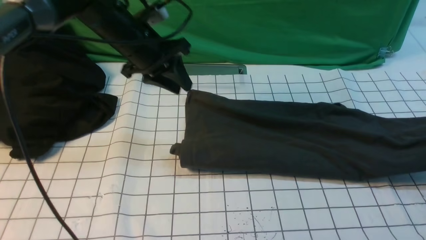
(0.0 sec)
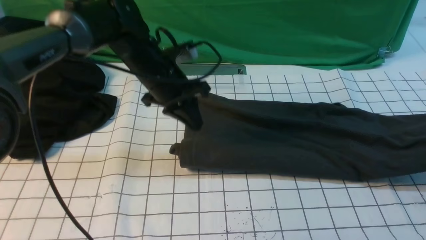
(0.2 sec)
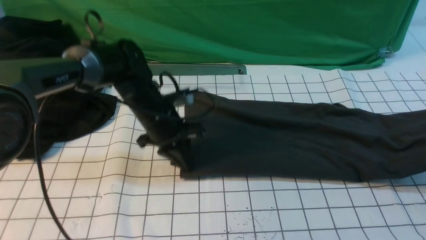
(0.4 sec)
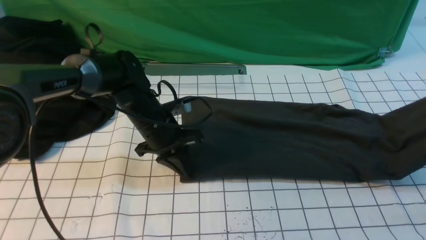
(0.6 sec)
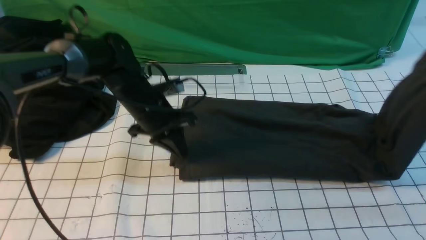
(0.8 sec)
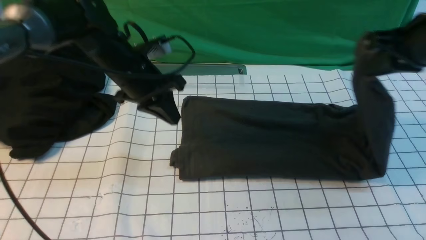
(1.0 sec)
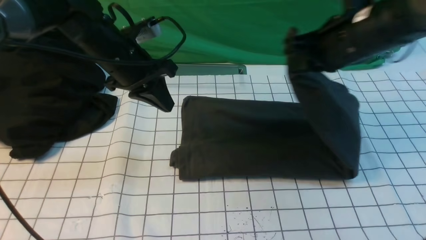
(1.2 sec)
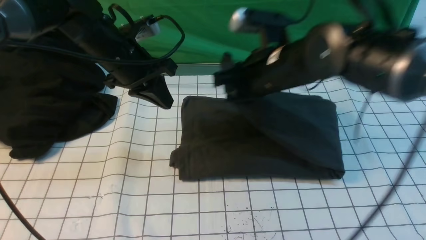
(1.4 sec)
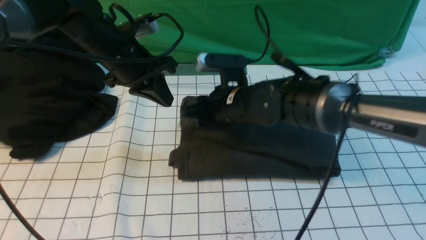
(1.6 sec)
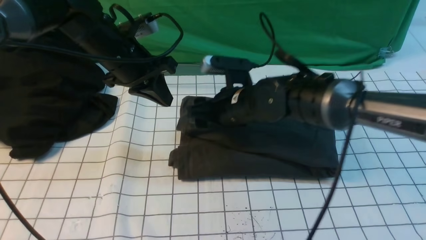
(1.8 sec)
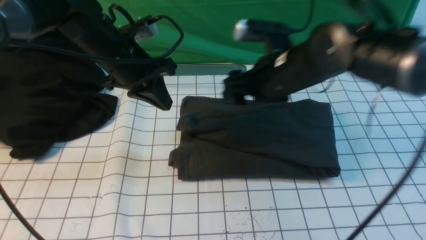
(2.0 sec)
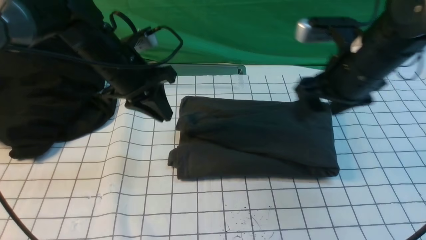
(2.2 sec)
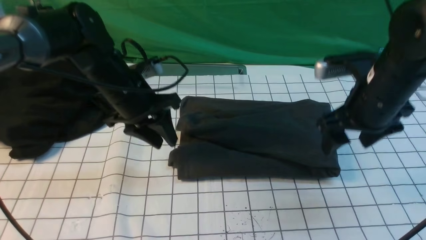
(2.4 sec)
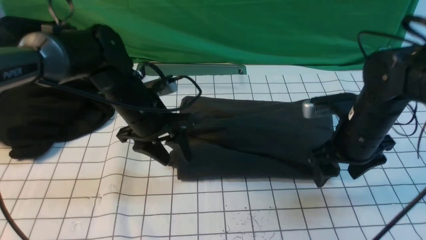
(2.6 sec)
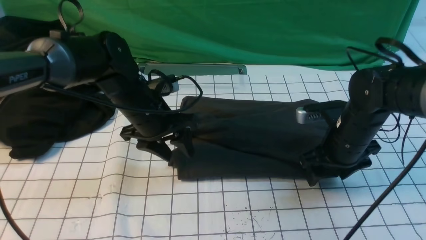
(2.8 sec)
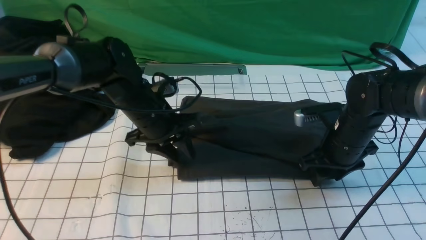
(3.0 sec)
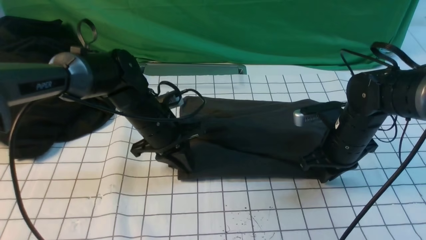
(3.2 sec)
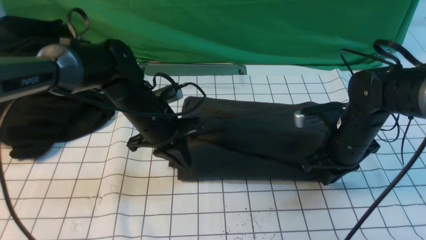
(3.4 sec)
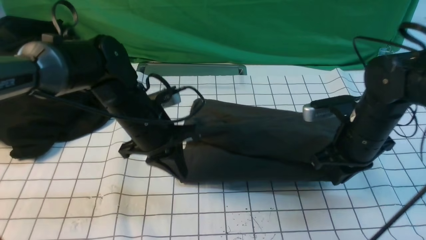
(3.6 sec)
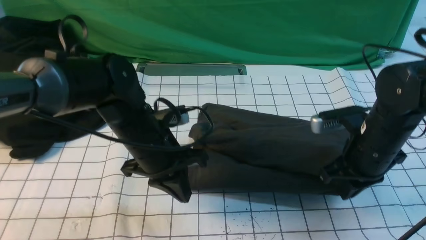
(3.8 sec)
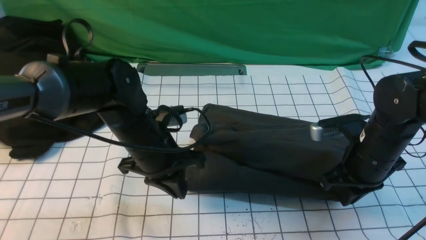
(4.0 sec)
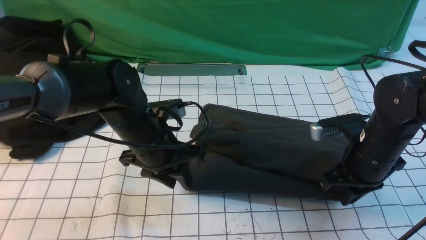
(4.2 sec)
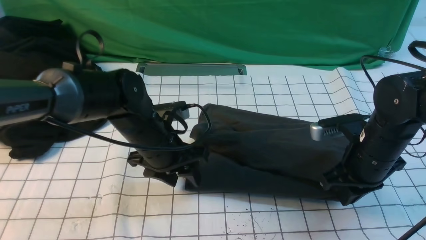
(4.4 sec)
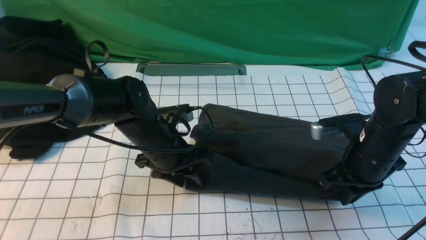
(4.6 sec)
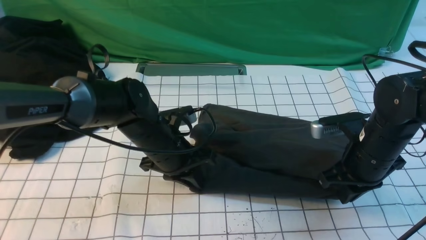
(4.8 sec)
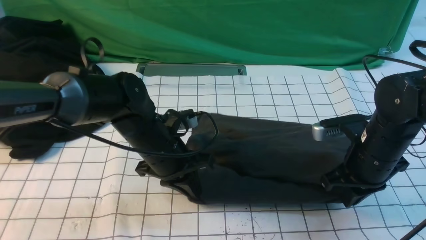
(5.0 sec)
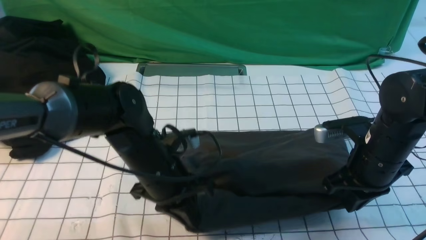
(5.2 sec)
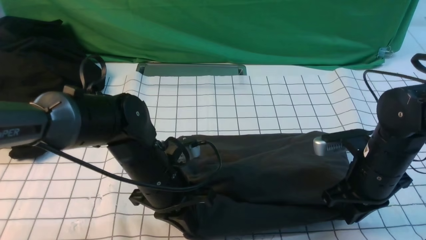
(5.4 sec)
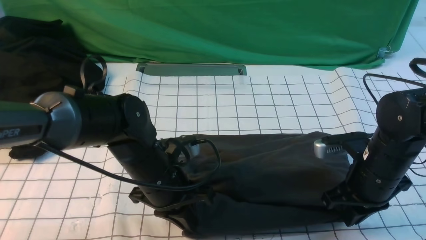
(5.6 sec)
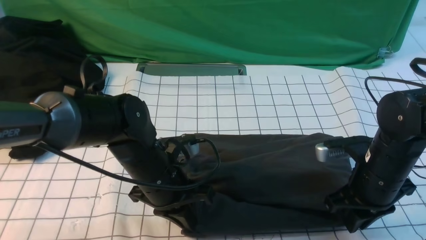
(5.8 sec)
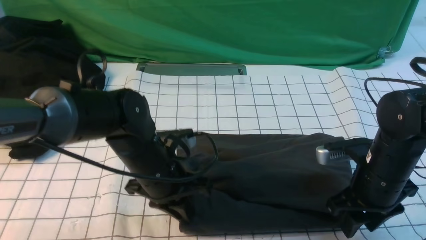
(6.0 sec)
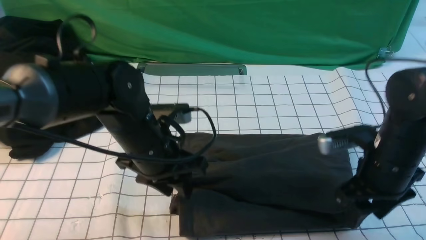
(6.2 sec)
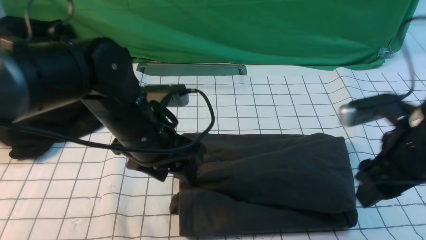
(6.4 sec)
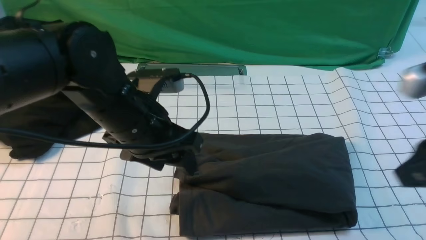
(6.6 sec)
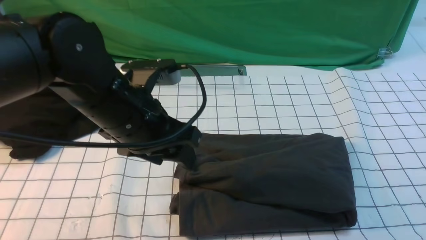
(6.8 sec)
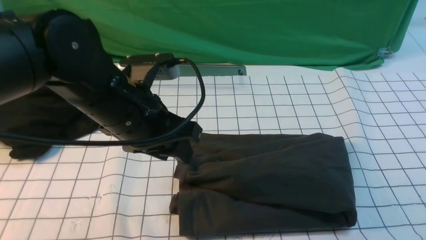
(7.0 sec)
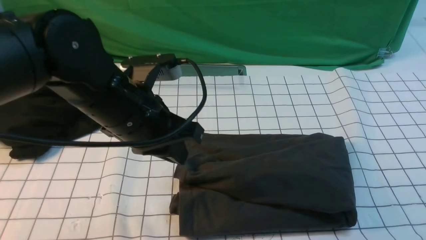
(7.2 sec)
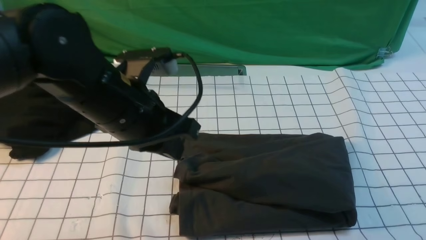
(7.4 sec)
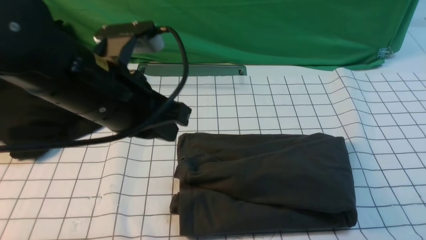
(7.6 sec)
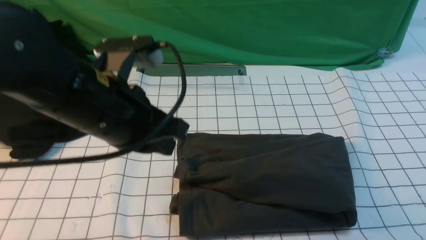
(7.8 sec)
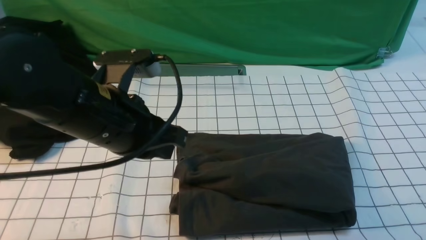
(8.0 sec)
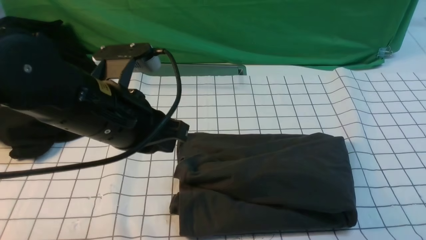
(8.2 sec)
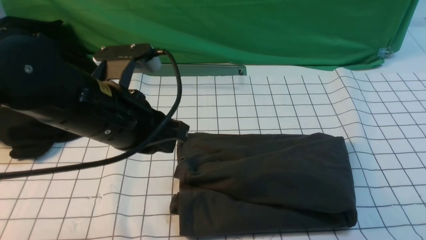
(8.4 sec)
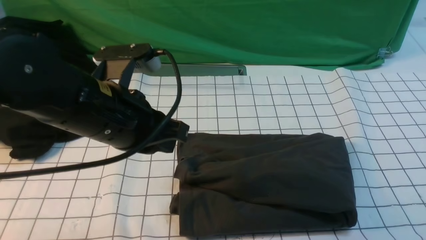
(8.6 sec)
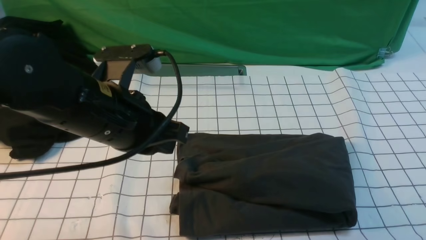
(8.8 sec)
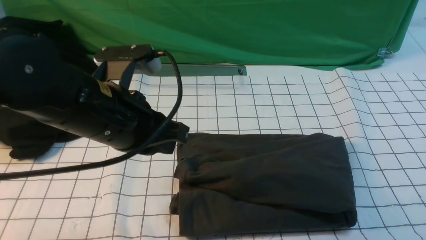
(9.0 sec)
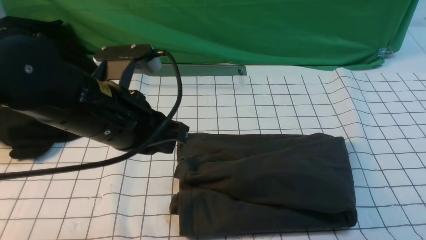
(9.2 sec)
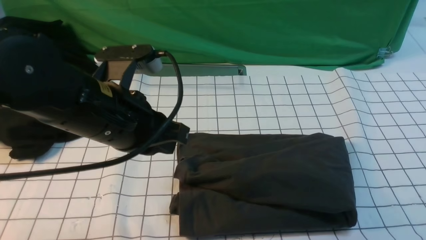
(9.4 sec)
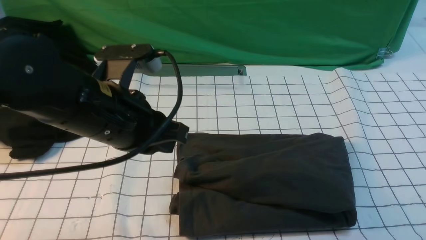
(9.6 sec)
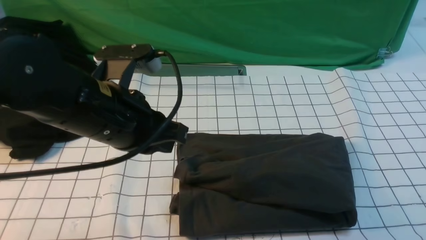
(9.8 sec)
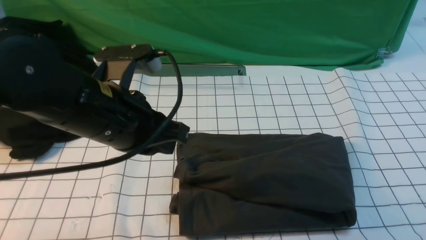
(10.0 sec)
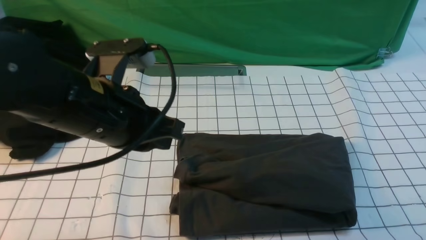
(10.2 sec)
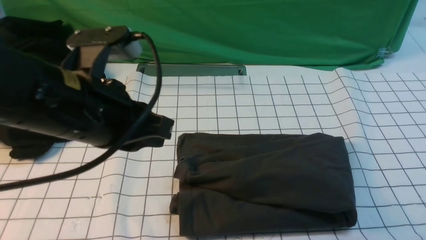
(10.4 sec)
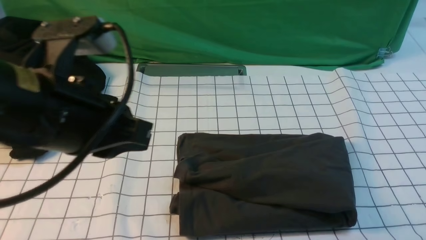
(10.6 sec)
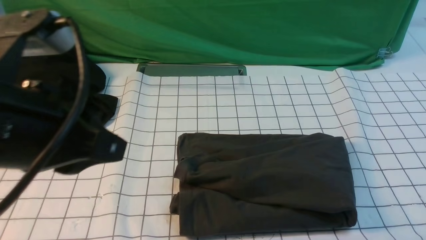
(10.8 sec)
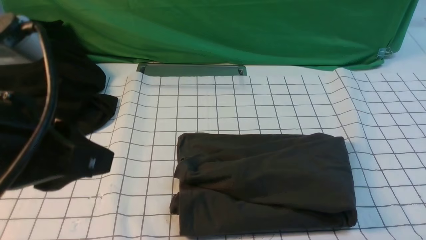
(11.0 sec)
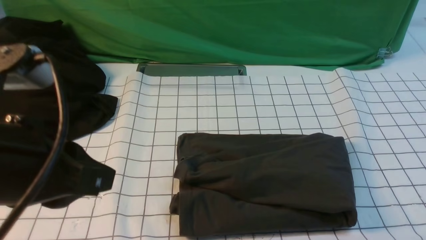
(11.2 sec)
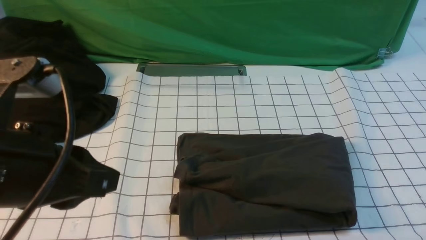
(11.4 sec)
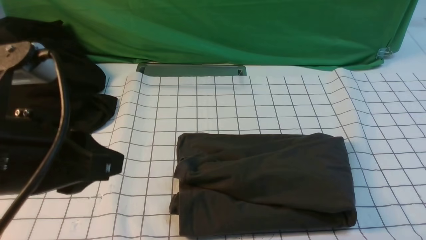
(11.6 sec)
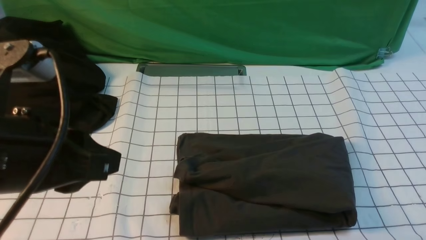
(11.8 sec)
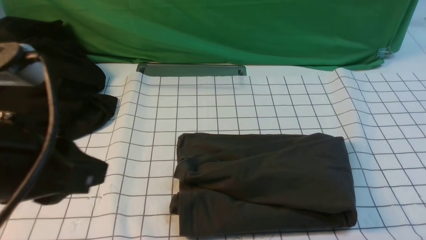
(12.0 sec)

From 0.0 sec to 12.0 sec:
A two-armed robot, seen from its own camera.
Step, from 0.6 sec to 2.0 sec: use the right arm to drag the right edge of the fabric to the left and folds it over the left edge.
From 0.0 sec to 1.6 sec: The left gripper travels downward and back again, roughly 10 cm each way, and closes. The right gripper shifts approximately 50 cm to the left, and opens.
From 1.6 sec to 3.0 sec: The right gripper is displaced to the right by about 15 cm, and opens, then closes again, while the left gripper moves downward, about 10 cm, and opens.
From 3.0 sec to 4.4 sec: The right gripper ends up roughly 5 cm from where it was, and closes, while the left gripper shifts by about 5 cm, and closes and opens again.
From 4.4 sec to 6.0 sec: The right gripper opens up; the left gripper closes its fingers.
From 6.0 sec to 7.6 sec: The left gripper shifts about 15 cm upward, and closes its fingers. Meanwhile the right gripper travels backward and upward by about 35 cm, and closes.
From 7.6 sec to 9.0 sec: The right gripper travels downward and forward by some 10 cm.
From 9.0 sec to 10.4 sec: The right gripper heads downward, covering approximately 15 cm; the left gripper shifts by about 5 cm.
From 10.4 sec to 12.0 sec: The left gripper is displaced backward and to the left by roughly 10 cm.

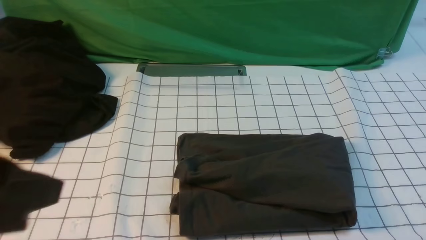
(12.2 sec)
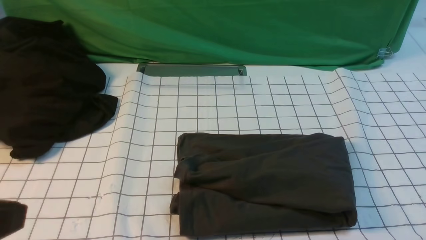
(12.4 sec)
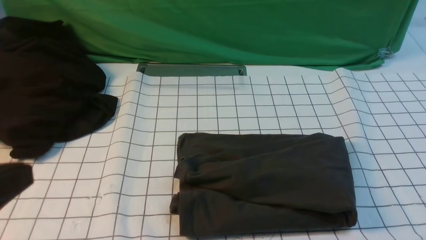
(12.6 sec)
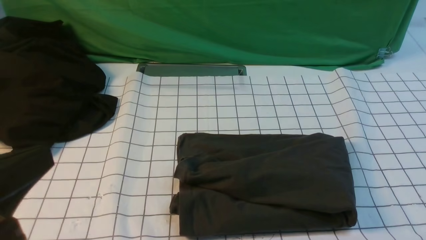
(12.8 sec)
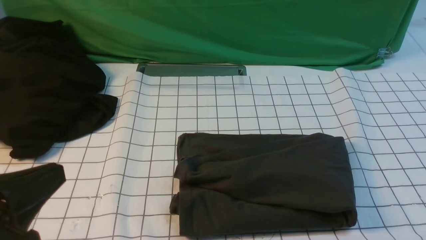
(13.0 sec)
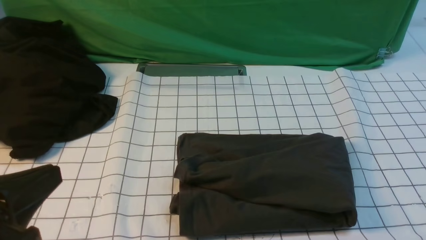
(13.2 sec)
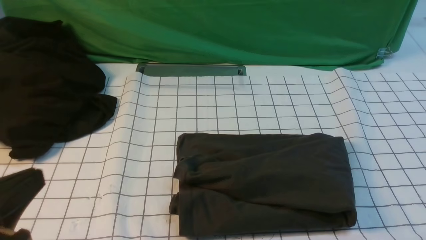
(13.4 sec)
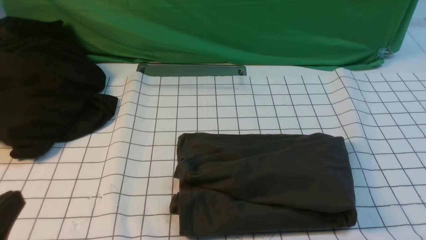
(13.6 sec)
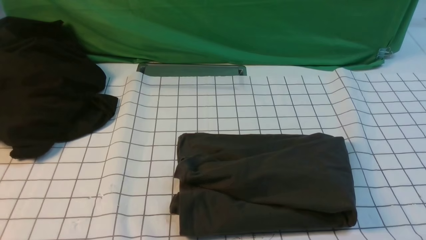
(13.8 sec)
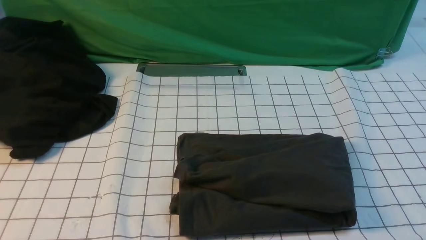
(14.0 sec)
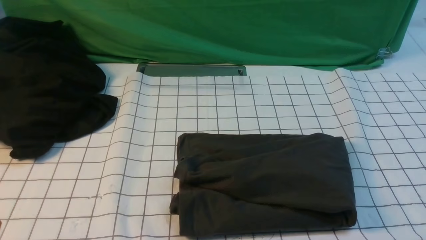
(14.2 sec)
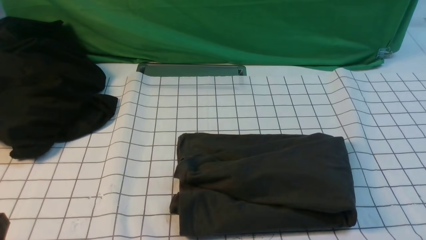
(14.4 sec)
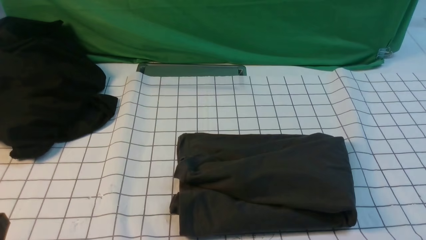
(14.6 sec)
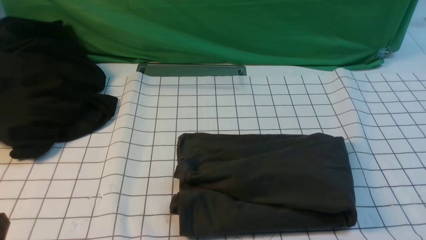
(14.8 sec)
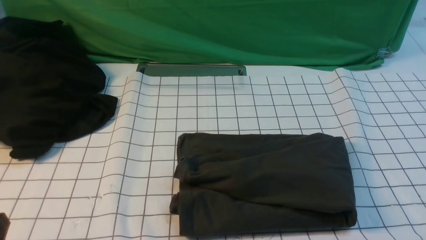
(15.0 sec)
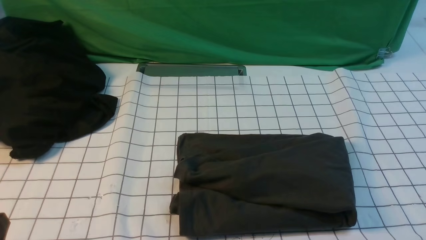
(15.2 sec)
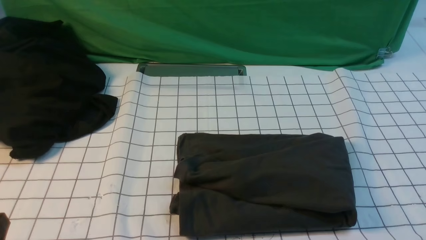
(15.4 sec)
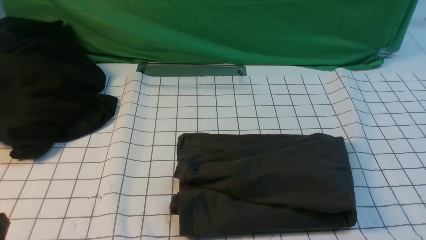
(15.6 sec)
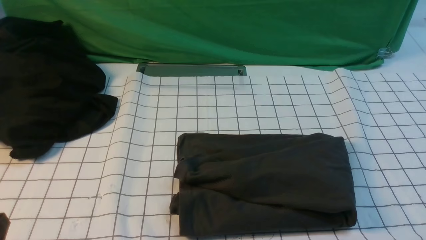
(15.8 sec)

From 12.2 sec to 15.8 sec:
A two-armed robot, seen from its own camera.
From 12.2 sec to 14.0 sec: The left gripper travels downward by roughly 20 cm.
